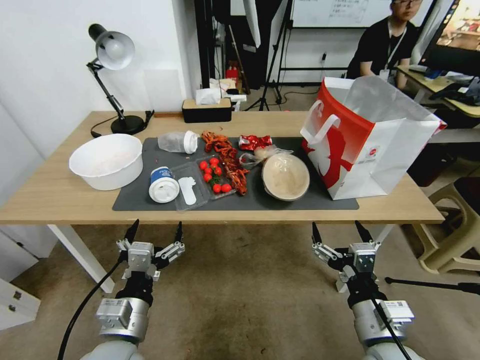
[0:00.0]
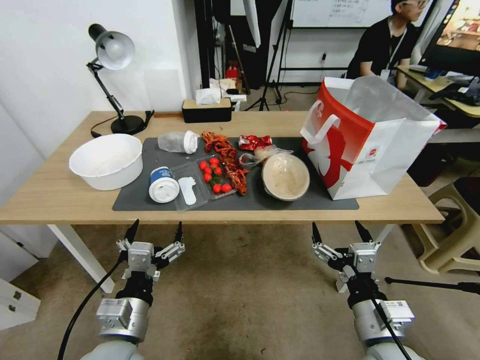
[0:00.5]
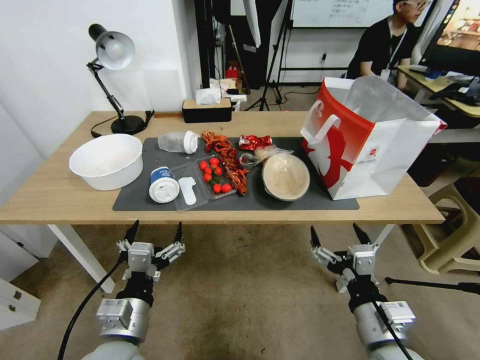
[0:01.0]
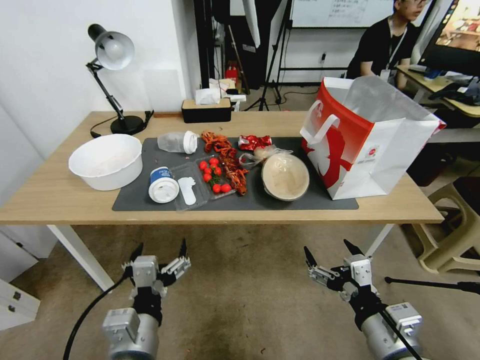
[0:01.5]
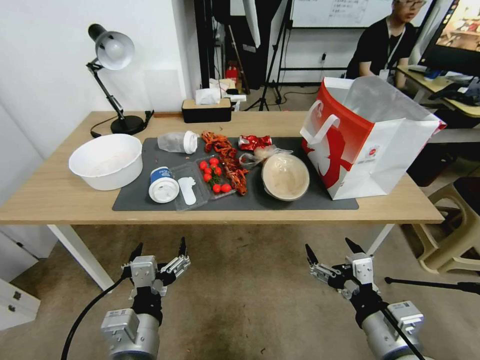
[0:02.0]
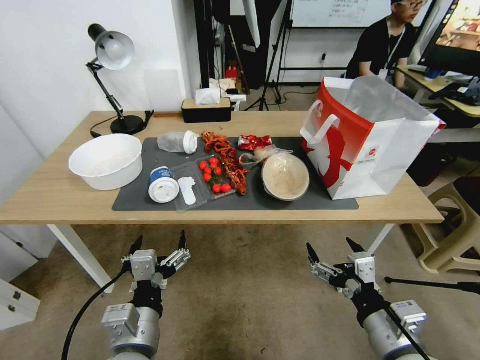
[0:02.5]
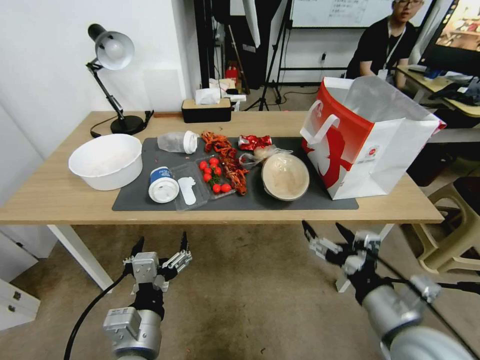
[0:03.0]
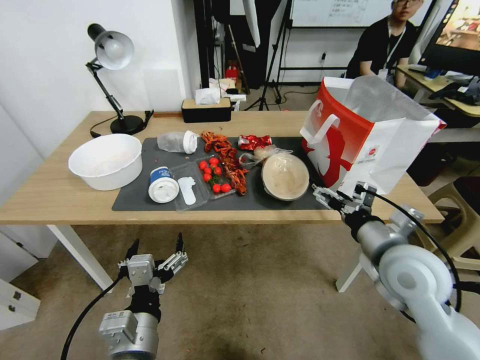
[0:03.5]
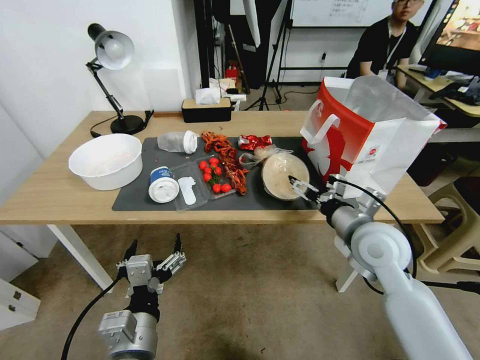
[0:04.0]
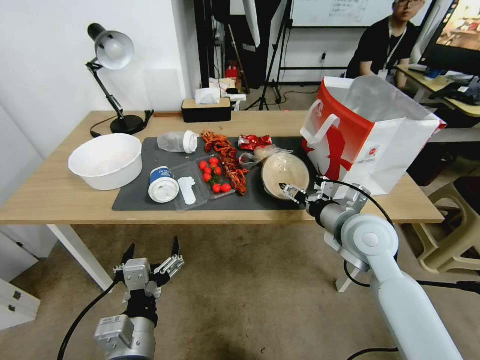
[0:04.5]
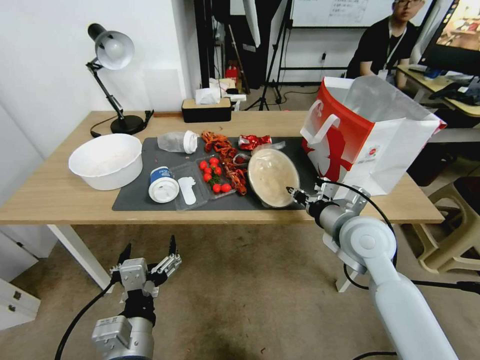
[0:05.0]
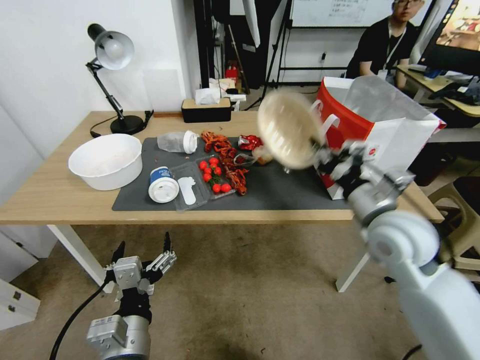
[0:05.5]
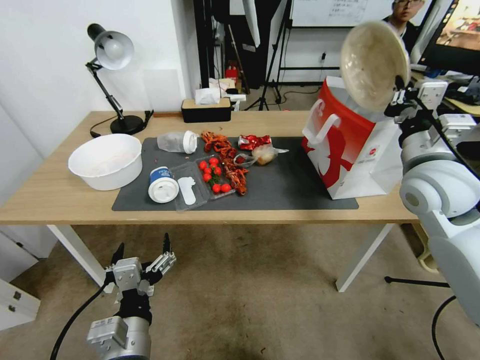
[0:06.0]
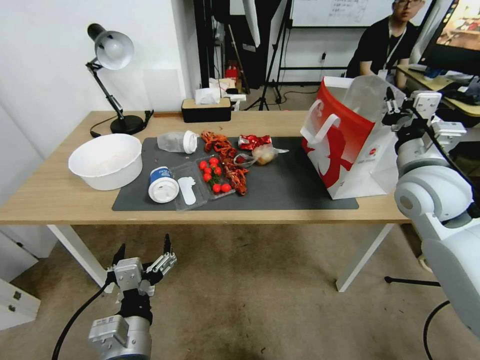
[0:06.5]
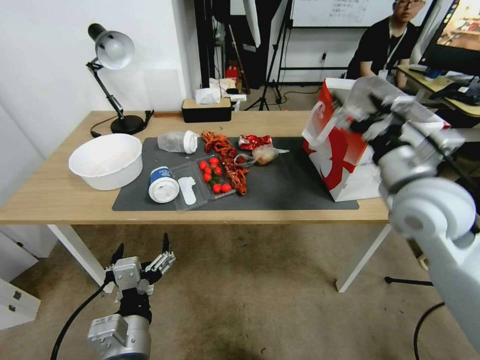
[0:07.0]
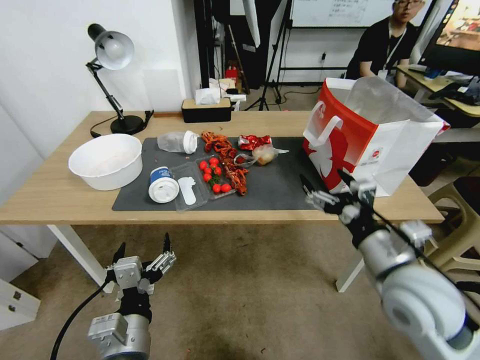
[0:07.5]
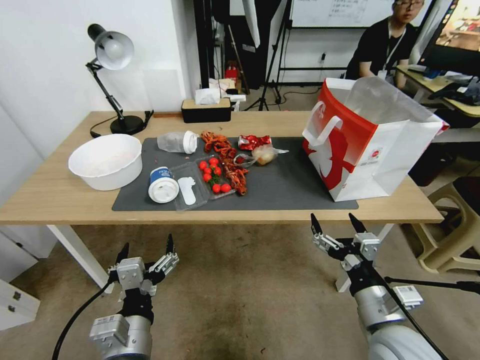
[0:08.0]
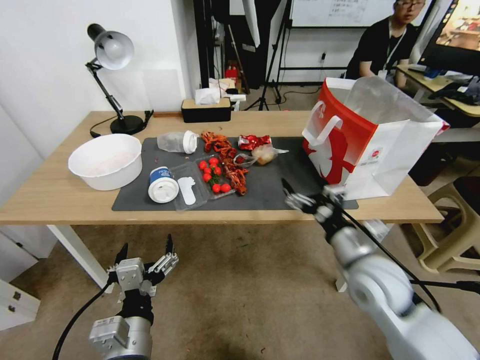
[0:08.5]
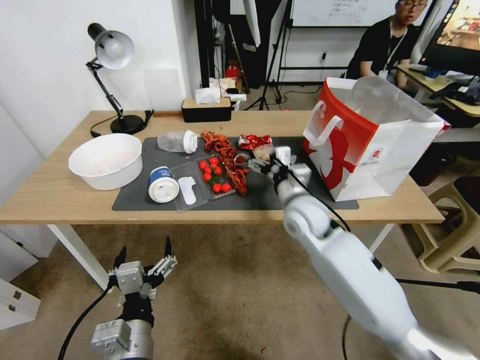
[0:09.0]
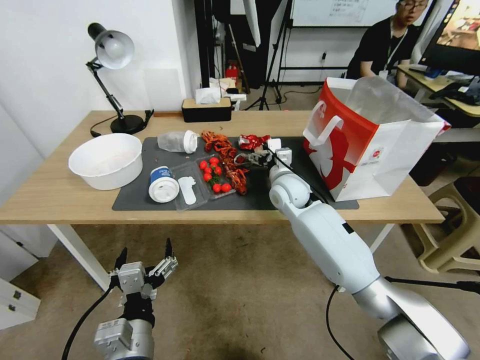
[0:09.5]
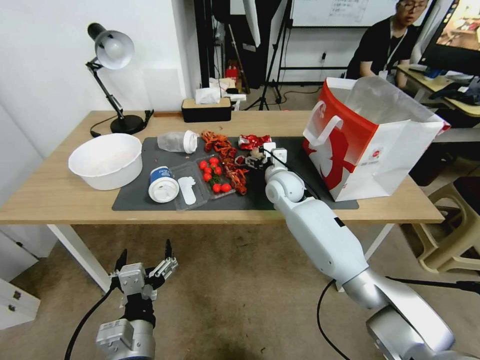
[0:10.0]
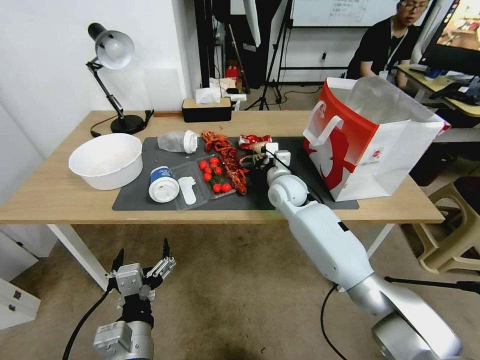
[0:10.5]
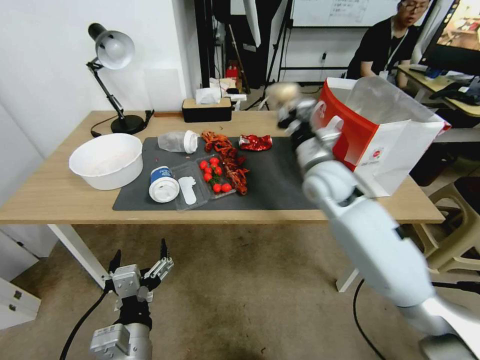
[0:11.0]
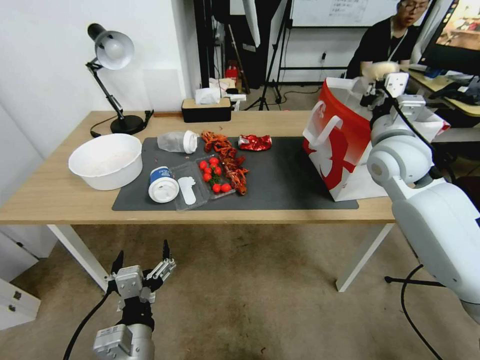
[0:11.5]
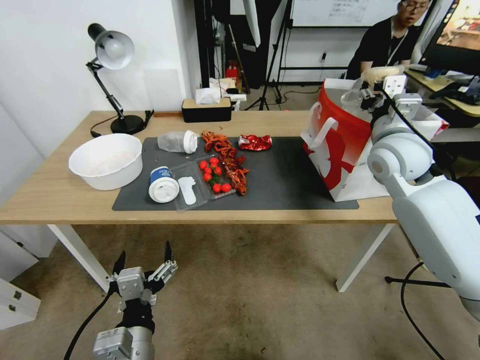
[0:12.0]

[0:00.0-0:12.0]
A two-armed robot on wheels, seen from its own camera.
0:02.0 to 0:04.0: The right gripper shifts some 20 cm forward.
0:04.0 to 0:06.0: The right gripper shifts some 15 cm upward and to the right, and closes its fingers.
0:06.0 to 0:08.0: The right gripper shifts some 30 cm backward and downward, and opens.
0:08.0 to 0:10.0: The right gripper heads forward, covering roughly 35 cm.
0:10.0 to 0:12.0: The right gripper moves to the right and upward, about 25 cm, and closes, then opens again.

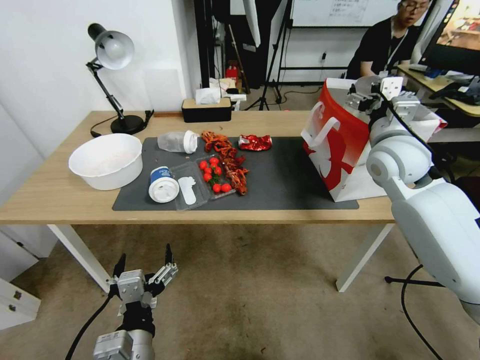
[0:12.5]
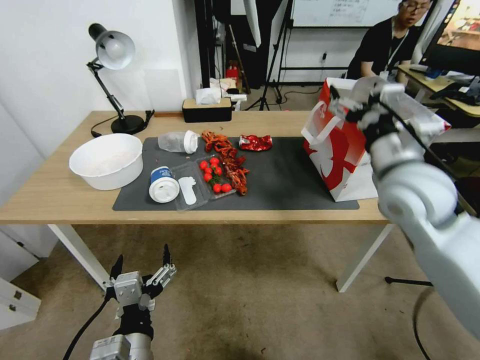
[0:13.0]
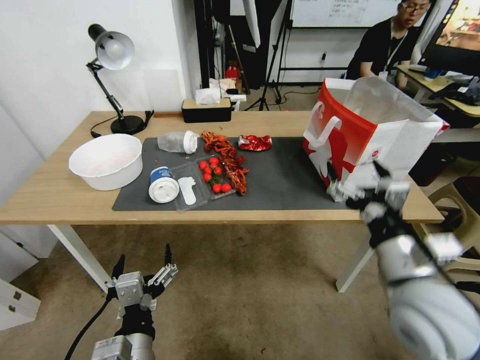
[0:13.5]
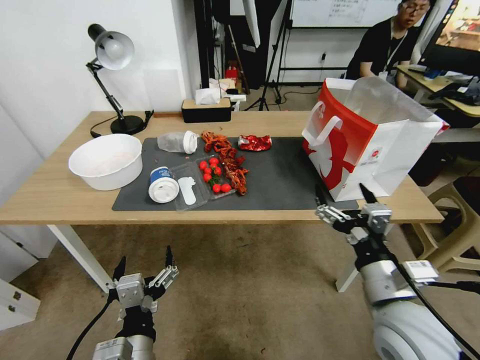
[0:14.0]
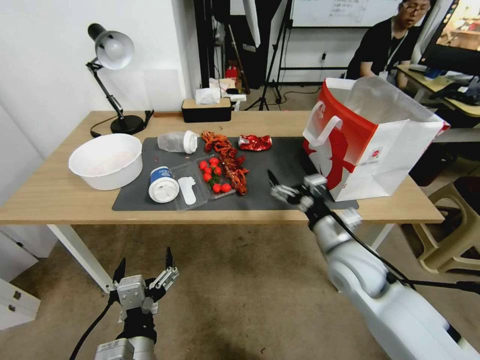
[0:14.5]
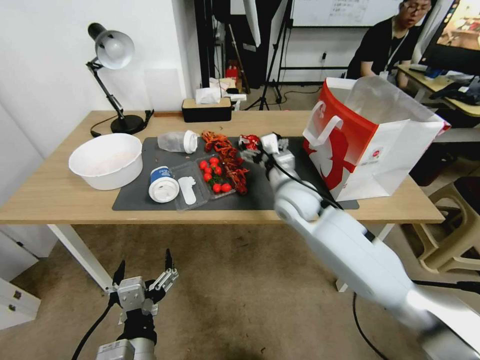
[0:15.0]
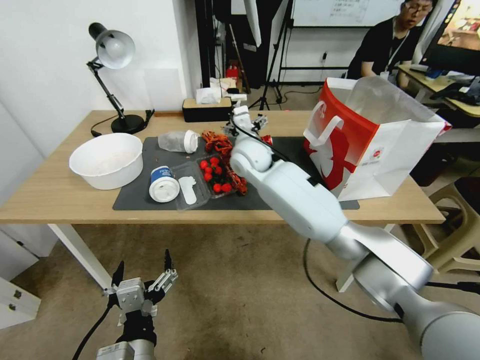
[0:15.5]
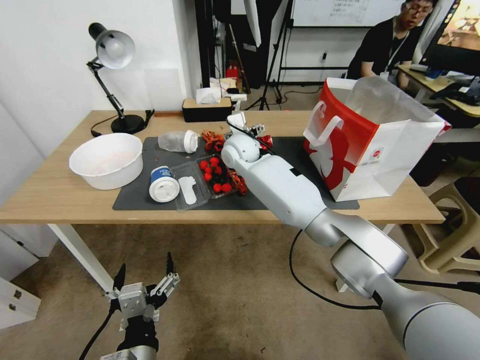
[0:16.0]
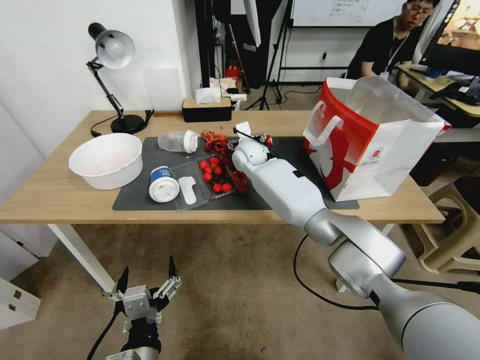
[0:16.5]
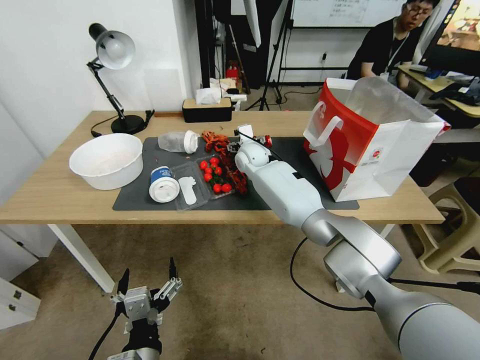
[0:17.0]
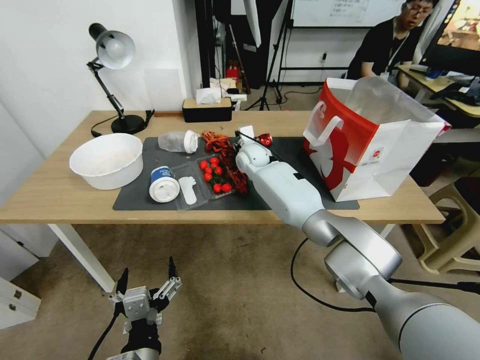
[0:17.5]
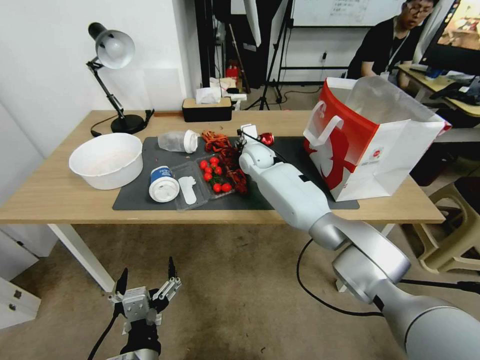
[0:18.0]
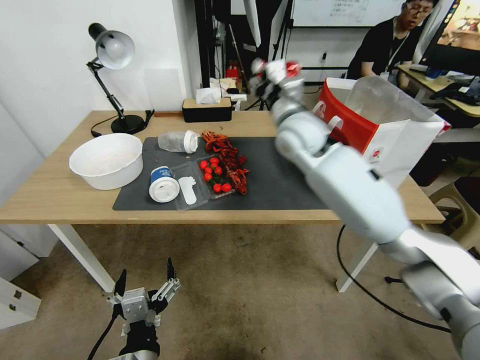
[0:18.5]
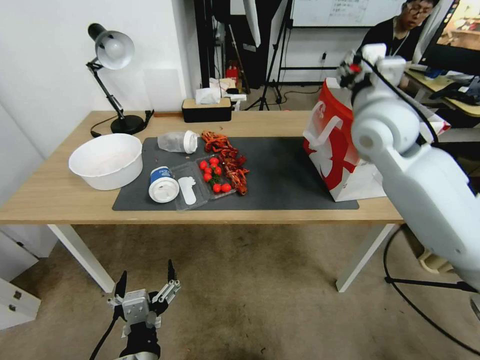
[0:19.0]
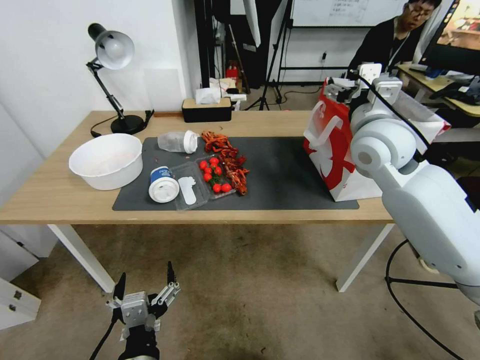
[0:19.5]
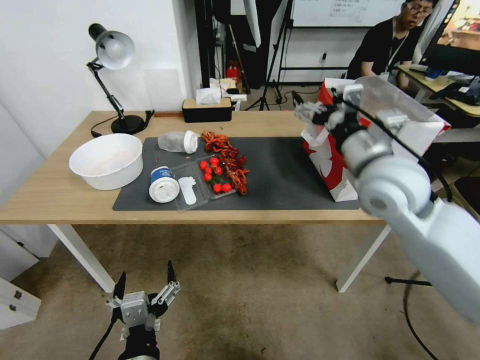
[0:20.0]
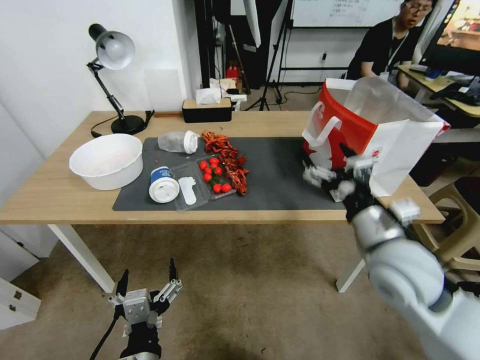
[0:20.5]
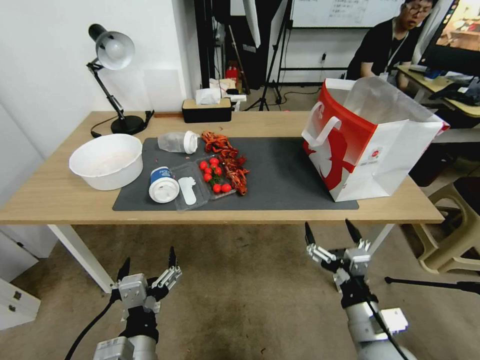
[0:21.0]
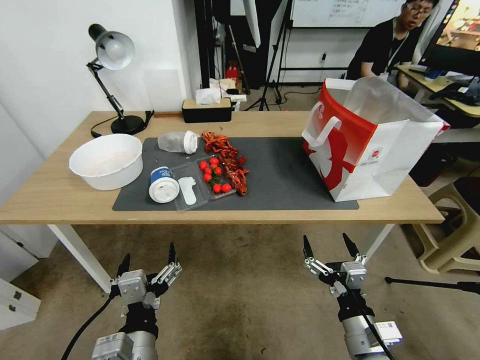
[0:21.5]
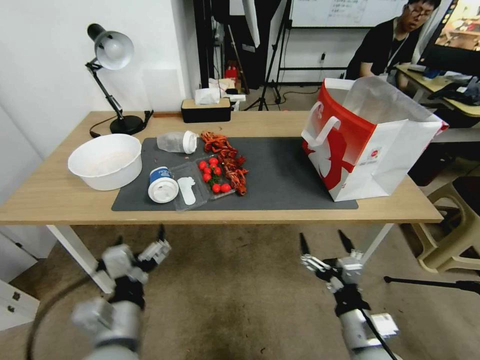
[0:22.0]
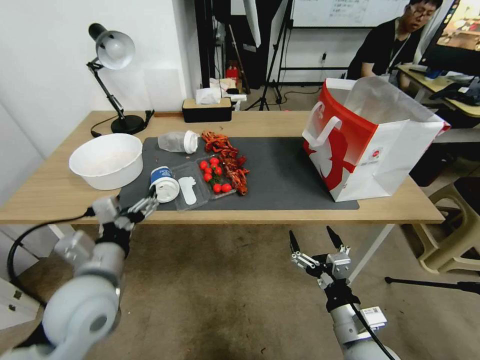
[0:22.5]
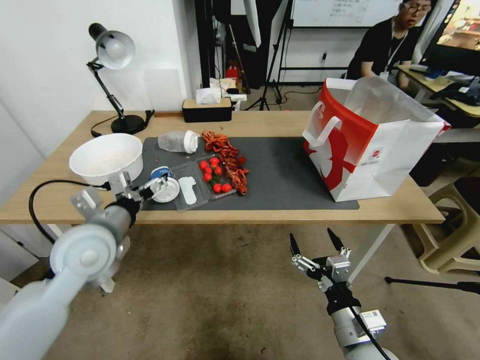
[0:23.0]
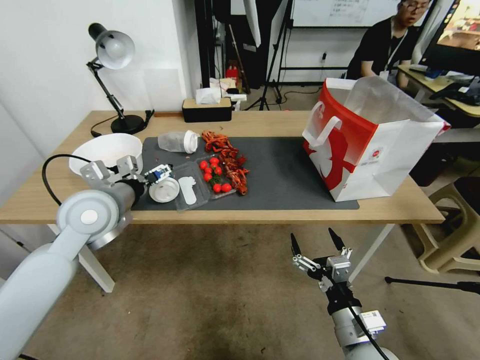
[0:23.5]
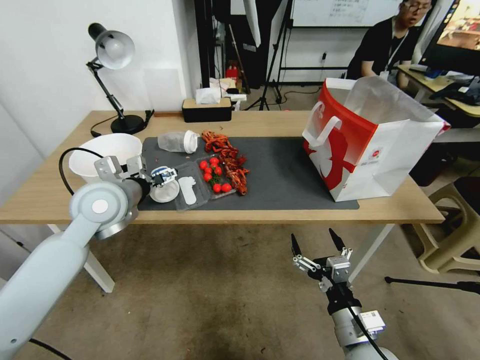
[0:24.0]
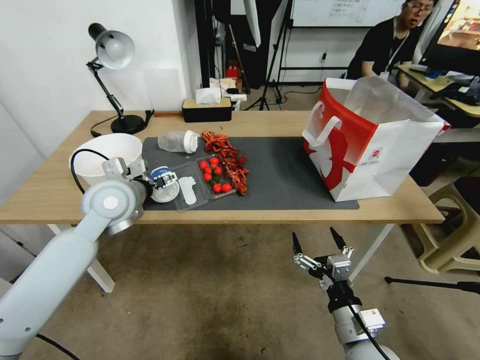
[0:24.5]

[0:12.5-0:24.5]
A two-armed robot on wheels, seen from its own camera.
0:12.5 to 0:14.5: The right gripper moves downward, backward and to the left, some 25 cm.
0:14.5 to 0:16.5: The right gripper moves forward and to the left, approximately 35 cm.
0:16.5 to 0:18.5: The right gripper goes roughly 20 cm upward, backward and to the right, and closes up.
0:18.5 to 0:20.5: The right gripper heads backward, to the right and downward, covering roughly 30 cm, and opens up.
0:20.5 to 0:22.5: The right gripper heads downward and backward, covering roughly 20 cm. The left gripper heads forward, upward and to the left, covering roughly 10 cm.
0:22.5 to 0:24.5: The left gripper is displaced forward by some 25 cm.

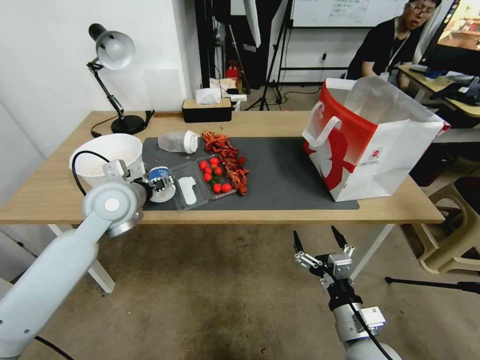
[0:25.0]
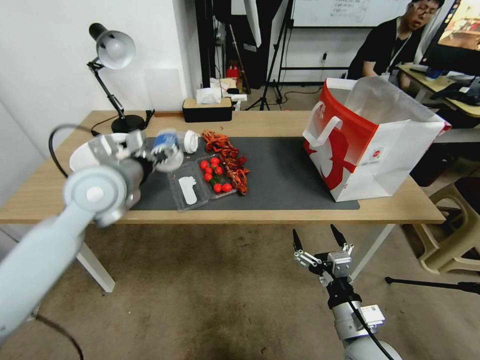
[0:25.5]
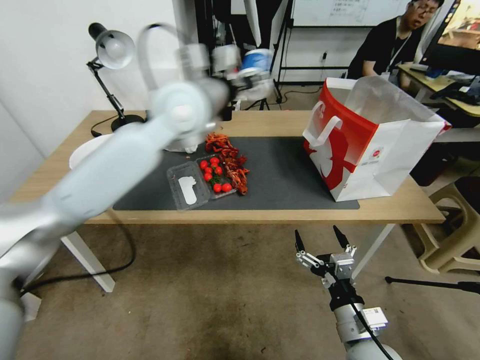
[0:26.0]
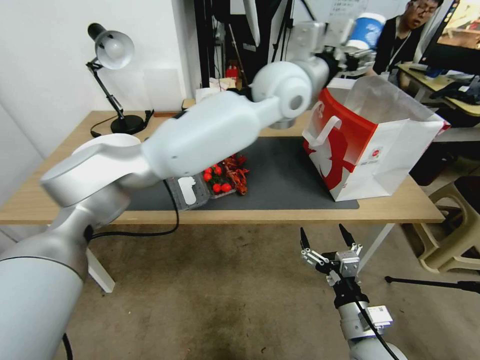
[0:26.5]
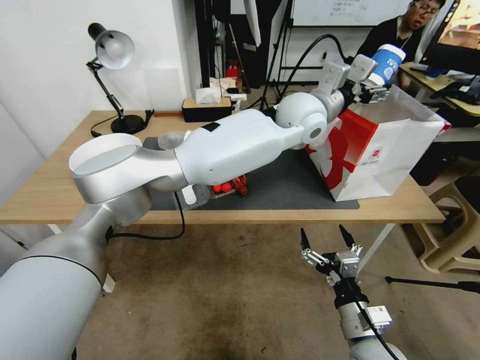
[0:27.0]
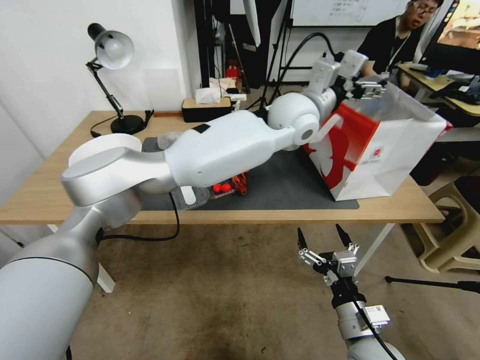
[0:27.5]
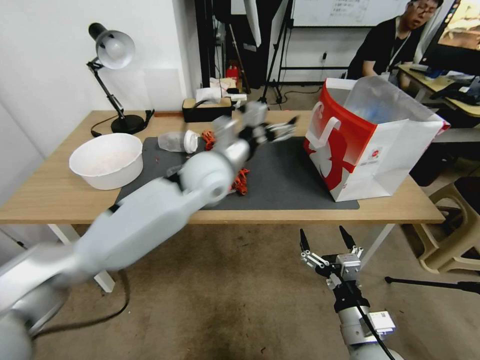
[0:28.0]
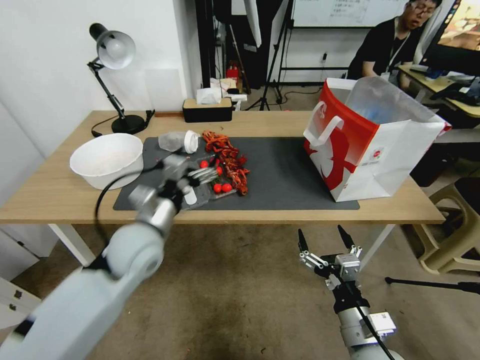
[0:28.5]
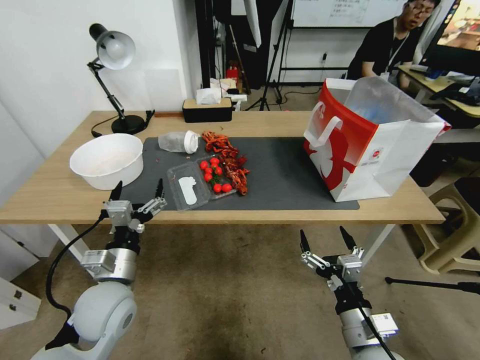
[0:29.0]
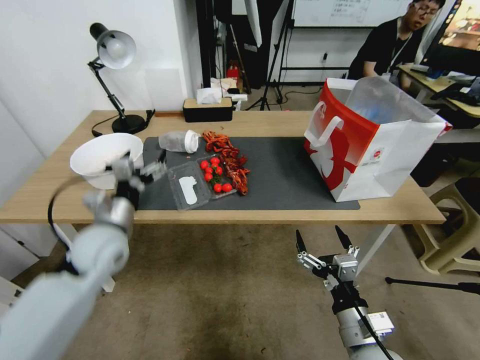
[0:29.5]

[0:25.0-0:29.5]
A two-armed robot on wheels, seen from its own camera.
0:25.0 to 0:27.0: The left gripper goes roughly 35 cm to the right.
0:27.0 to 0:29.5: The left gripper goes about 50 cm to the left, downward and backward.
